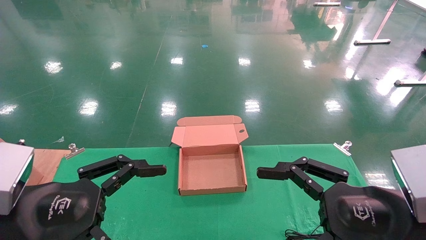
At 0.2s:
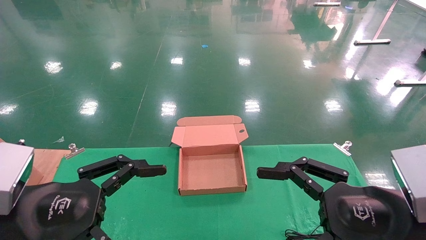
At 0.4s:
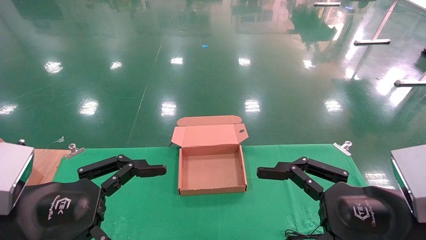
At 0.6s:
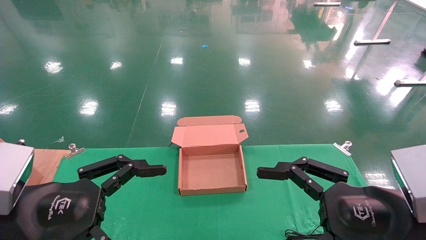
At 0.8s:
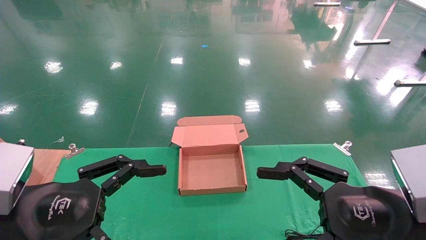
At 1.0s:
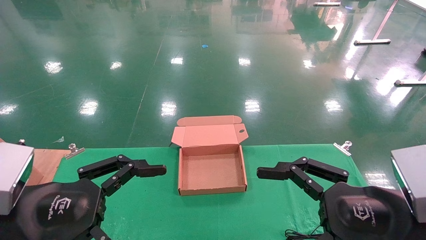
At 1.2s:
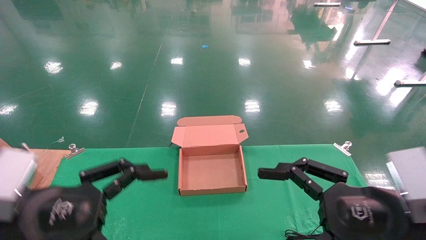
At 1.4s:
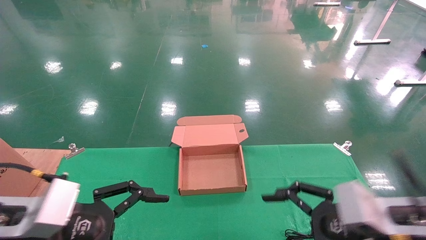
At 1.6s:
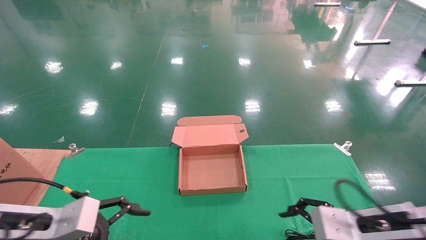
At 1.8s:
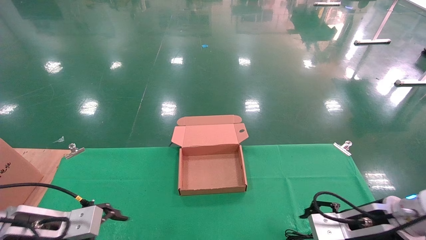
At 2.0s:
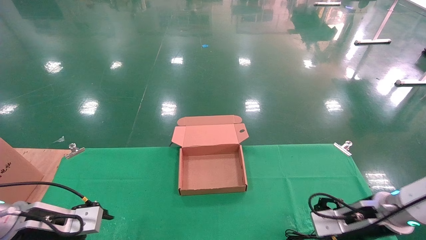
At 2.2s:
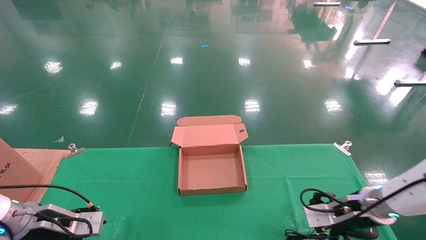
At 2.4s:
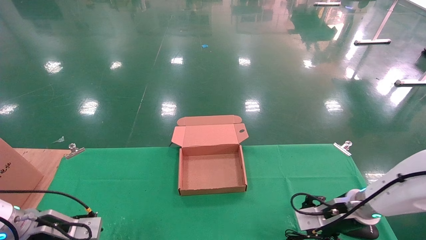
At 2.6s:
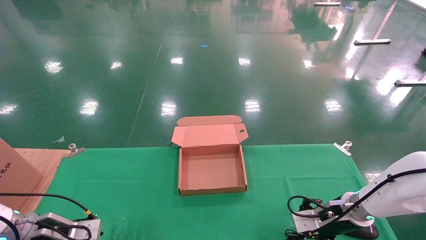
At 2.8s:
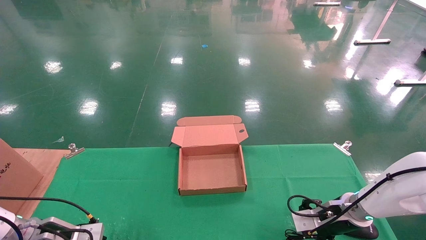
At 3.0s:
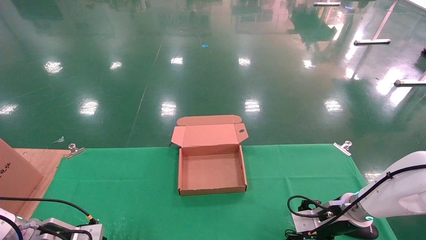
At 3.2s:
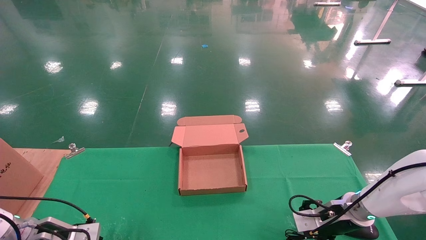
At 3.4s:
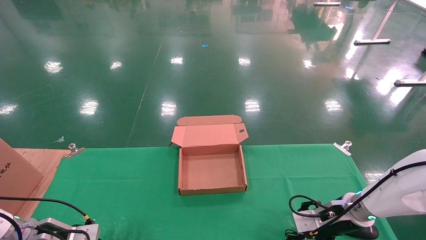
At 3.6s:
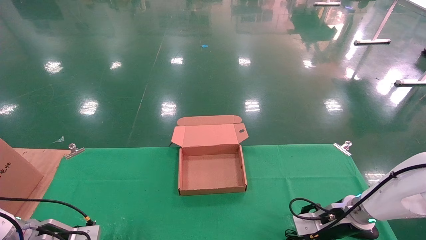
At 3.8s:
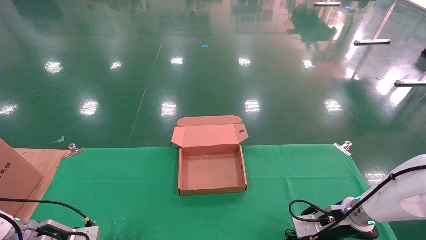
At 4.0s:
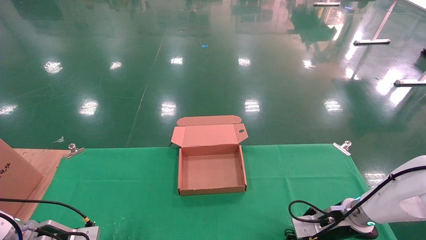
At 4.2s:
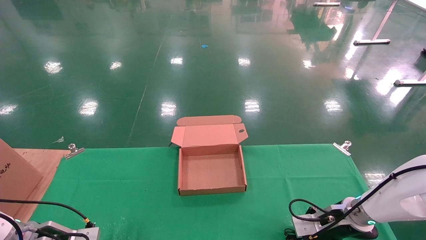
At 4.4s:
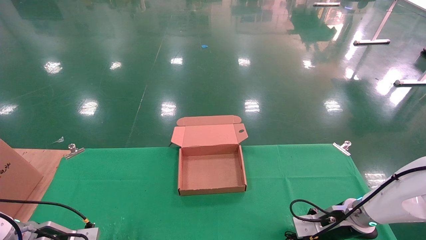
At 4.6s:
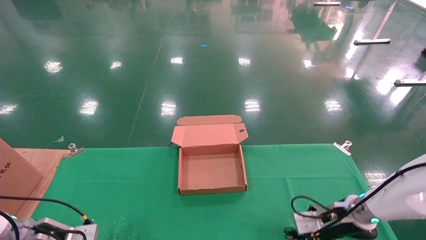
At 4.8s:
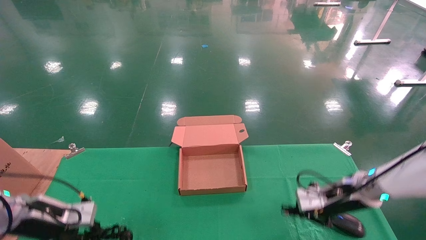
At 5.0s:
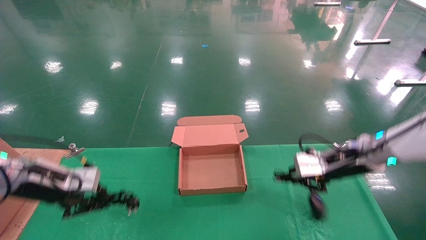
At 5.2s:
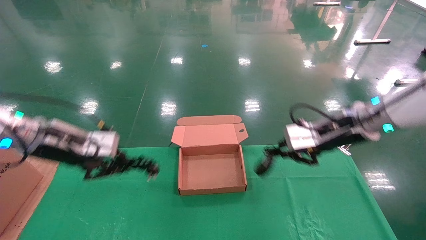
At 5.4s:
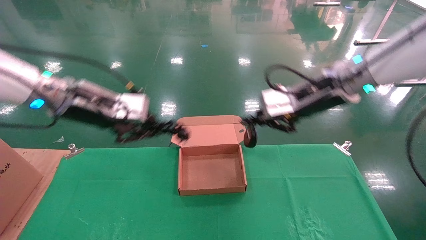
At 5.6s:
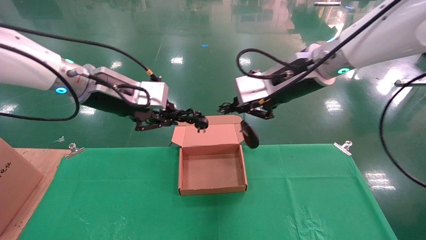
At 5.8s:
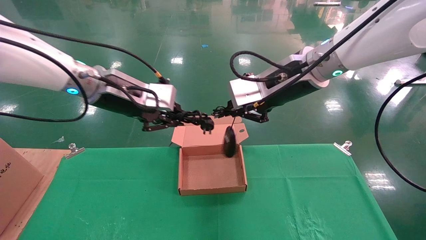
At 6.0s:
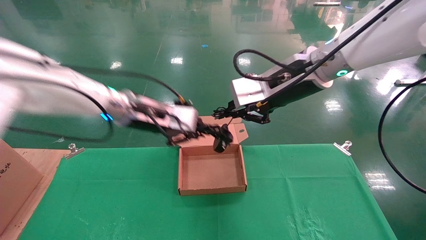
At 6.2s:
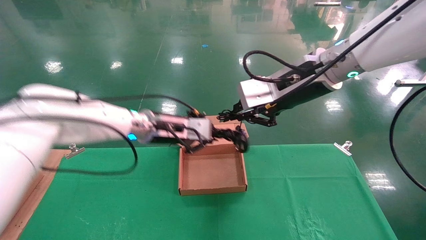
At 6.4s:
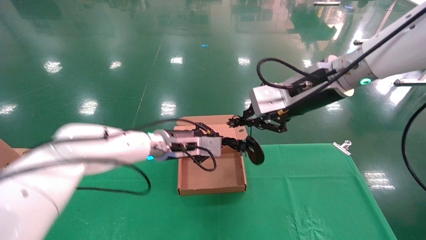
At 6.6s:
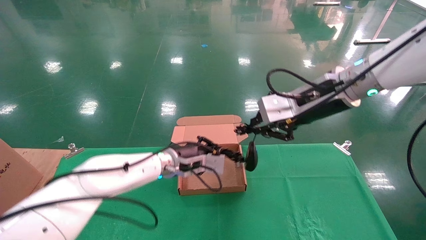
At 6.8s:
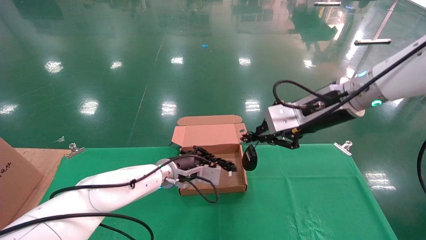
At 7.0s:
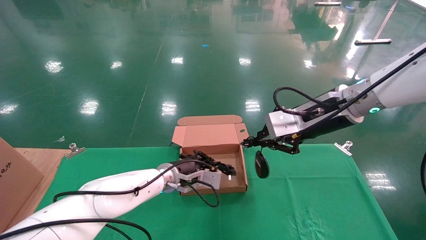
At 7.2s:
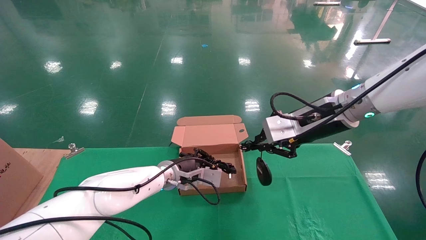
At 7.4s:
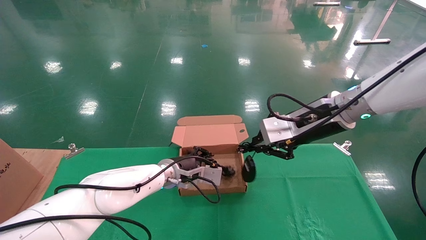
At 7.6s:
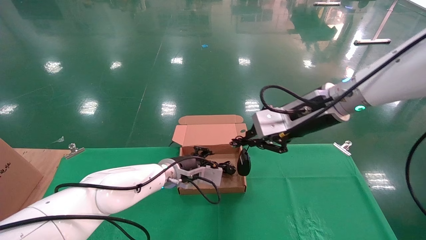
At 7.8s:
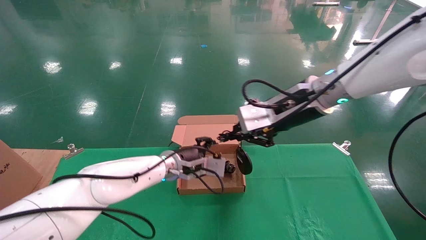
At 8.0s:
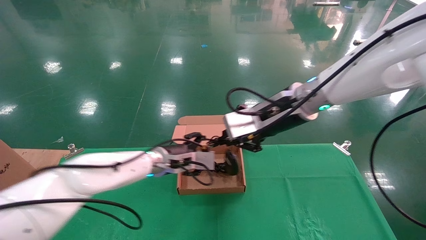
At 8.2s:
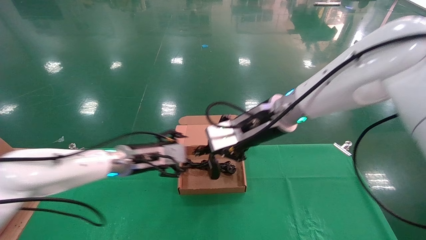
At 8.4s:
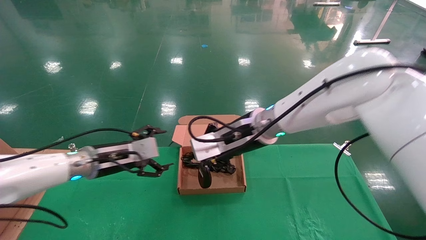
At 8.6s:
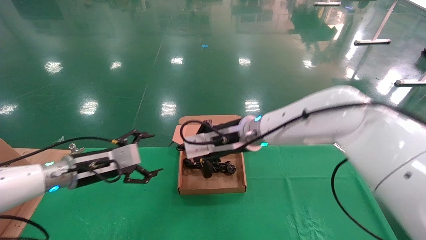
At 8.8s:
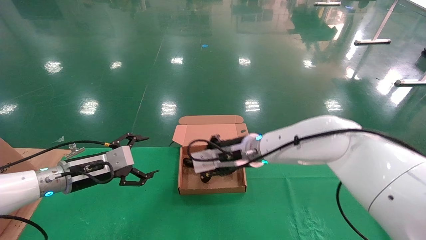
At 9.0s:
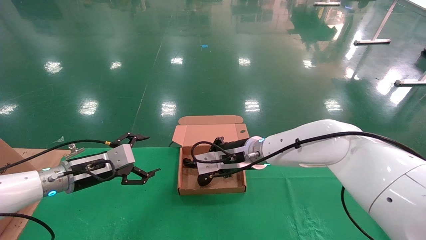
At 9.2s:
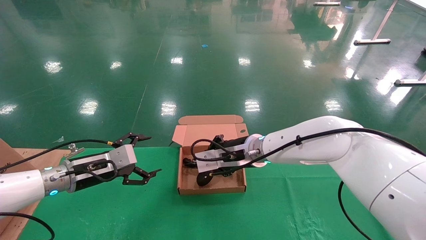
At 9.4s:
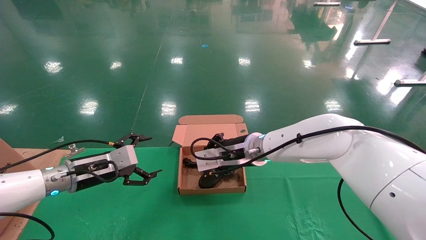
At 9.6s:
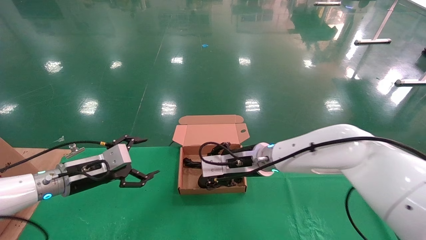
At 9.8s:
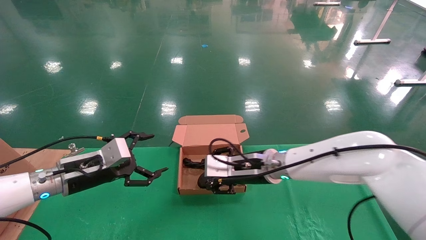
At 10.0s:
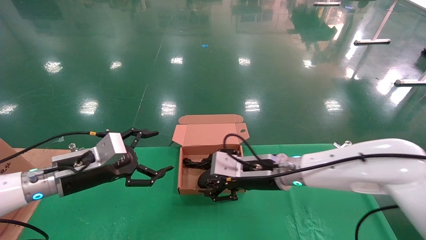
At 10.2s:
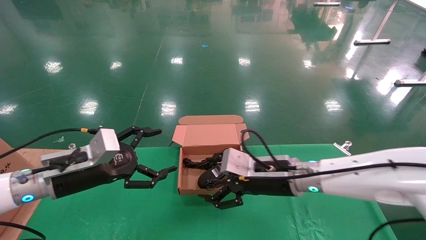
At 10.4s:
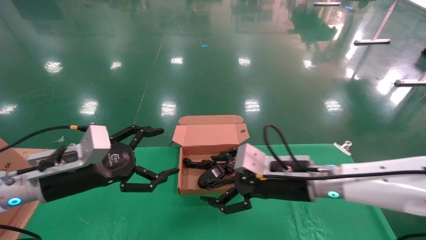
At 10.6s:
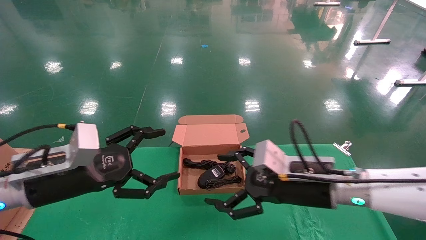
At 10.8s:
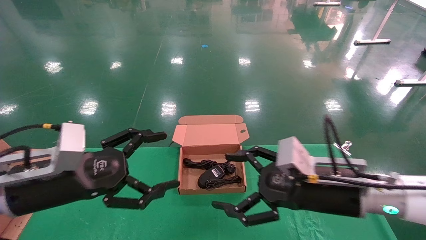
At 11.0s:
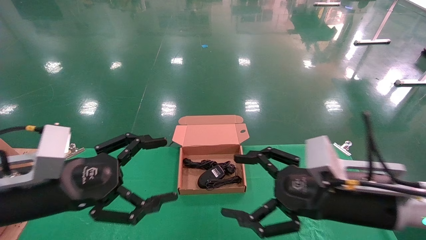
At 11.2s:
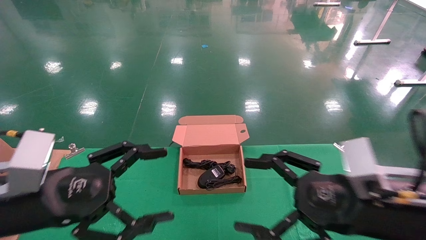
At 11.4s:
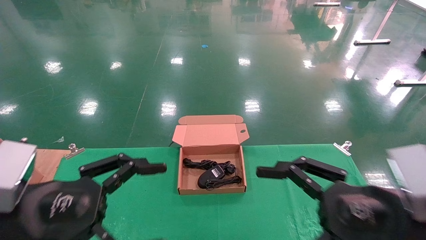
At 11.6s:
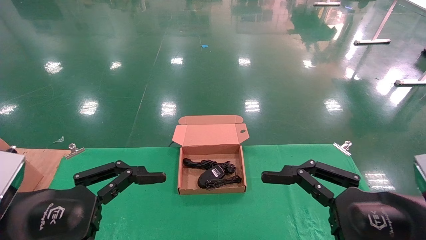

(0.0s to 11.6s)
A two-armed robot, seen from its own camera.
Step, 1.6s - 5.2s: Grab and lift both the mouse and power cord from the accessory packaging area at the same time.
Step, 5.4s - 10.0s: Place the mouse and power cord into the box.
0.0s - 1.4s: The left gripper changes place by approximately 5 cm; the right gripper shifts approximately 5 cm forward.
1.4s - 2.8s: The right gripper moves forward and downward, about 20 cm, while the left gripper is displaced forward, downward and to the left by some 20 cm.
2.8s - 4.4s: The right gripper closes up, while the left gripper closes.
4.4s - 5.8s: The right gripper moves upward and to the left, roughly 35 cm, while the left gripper travels upward and to the right by approximately 35 cm.
5.8s - 7.2s: The left gripper shifts roughly 25 cm downward, to the right and forward. The right gripper is displaced downward and to the right by approximately 10 cm.
7.2s - 8.8s: The left gripper goes roughly 20 cm to the left, and opens; the right gripper travels to the left, downward and forward by approximately 20 cm.
8.8s - 10.2s: The right gripper shifts roughly 10 cm to the right and backward, and opens up; the left gripper moves backward, roughly 5 cm.
10.2s - 11.6s: The right gripper moves backward and to the right, roughly 25 cm, while the left gripper moves backward, some 15 cm.

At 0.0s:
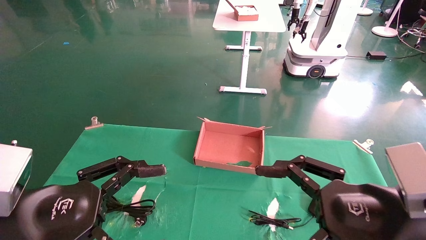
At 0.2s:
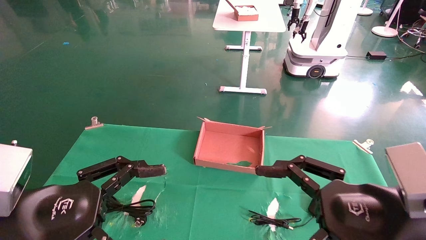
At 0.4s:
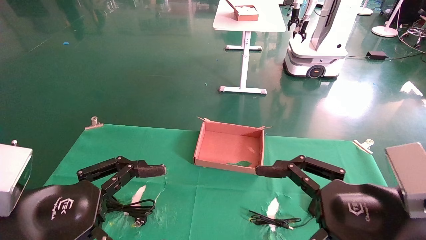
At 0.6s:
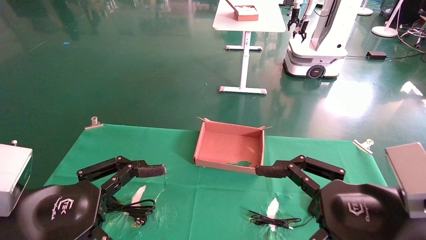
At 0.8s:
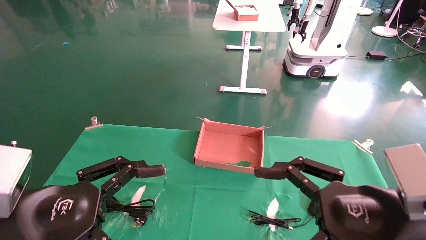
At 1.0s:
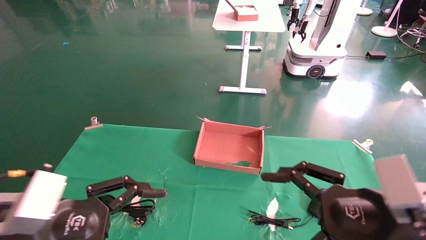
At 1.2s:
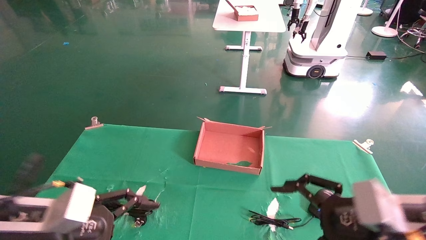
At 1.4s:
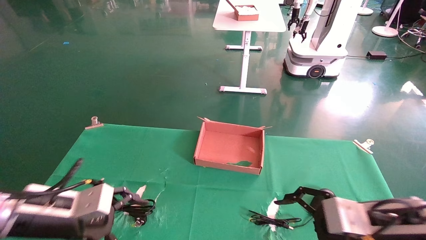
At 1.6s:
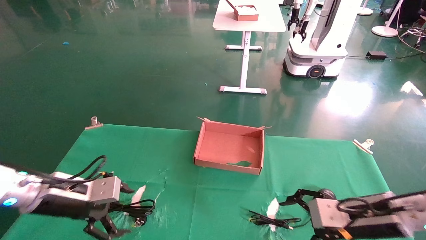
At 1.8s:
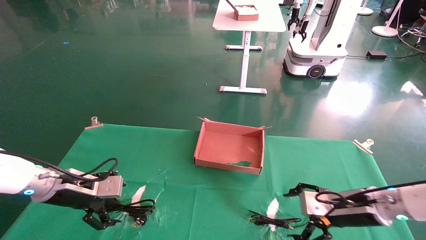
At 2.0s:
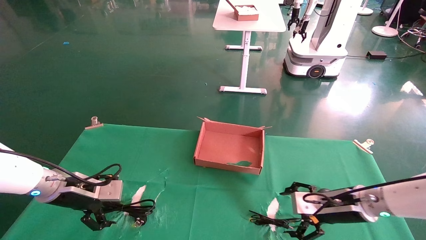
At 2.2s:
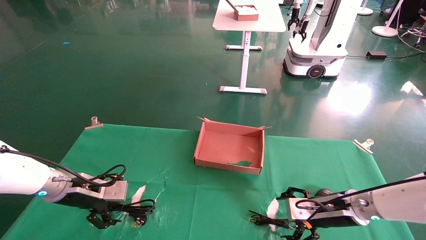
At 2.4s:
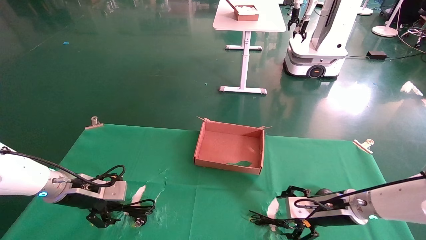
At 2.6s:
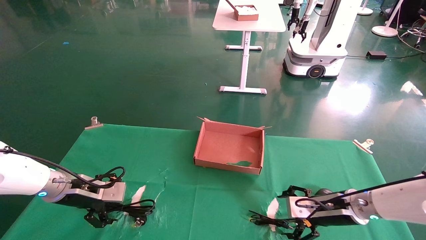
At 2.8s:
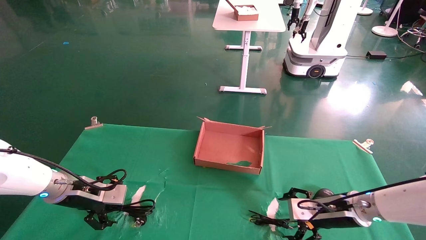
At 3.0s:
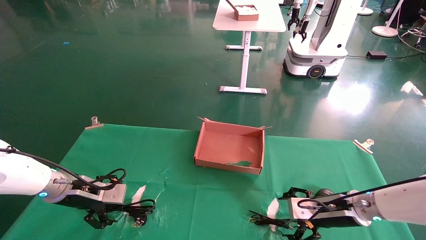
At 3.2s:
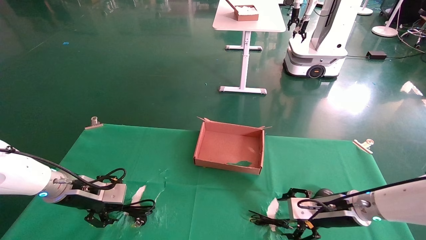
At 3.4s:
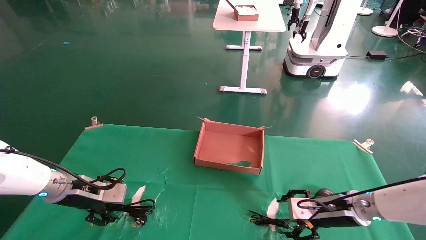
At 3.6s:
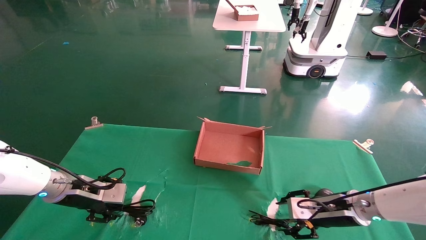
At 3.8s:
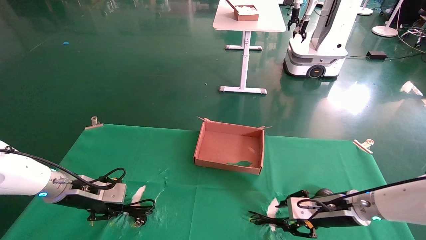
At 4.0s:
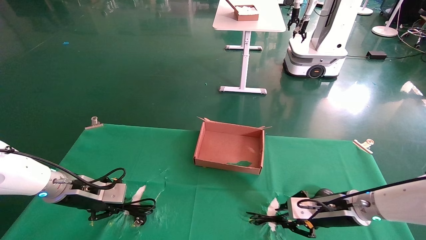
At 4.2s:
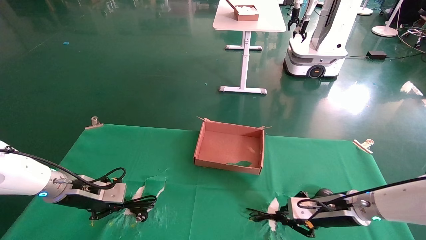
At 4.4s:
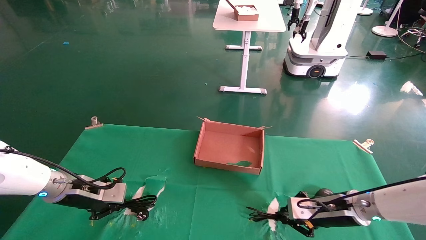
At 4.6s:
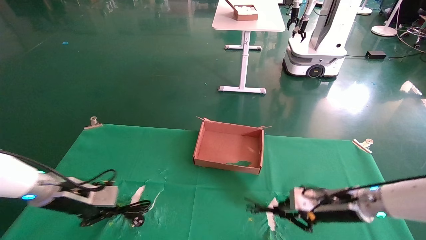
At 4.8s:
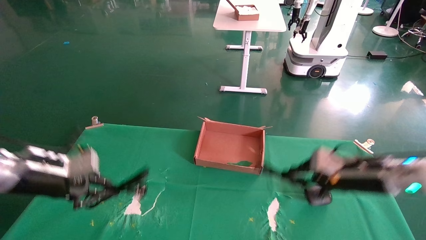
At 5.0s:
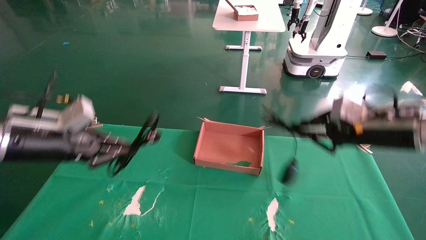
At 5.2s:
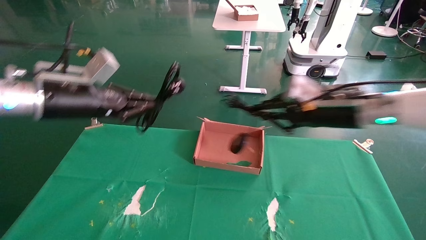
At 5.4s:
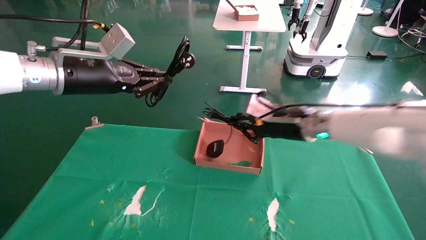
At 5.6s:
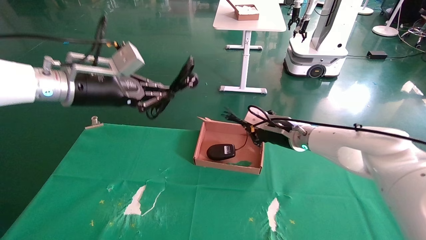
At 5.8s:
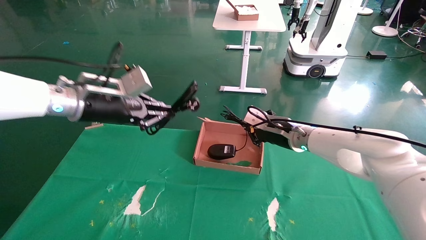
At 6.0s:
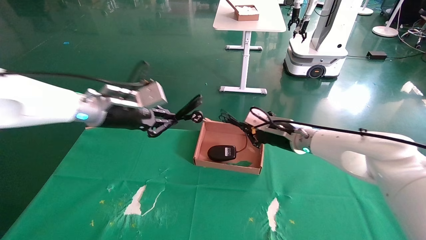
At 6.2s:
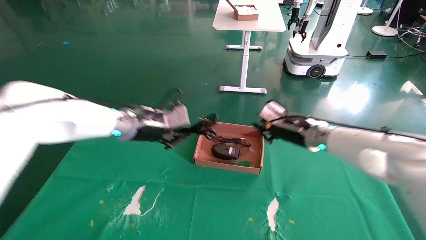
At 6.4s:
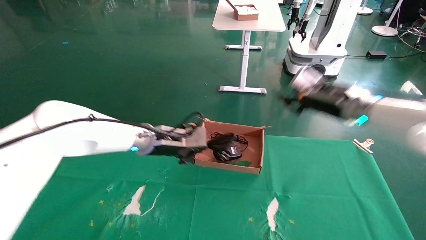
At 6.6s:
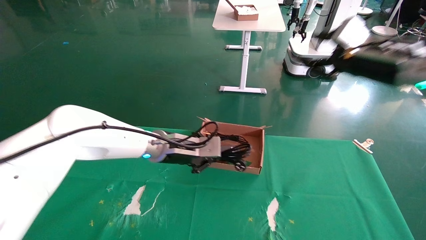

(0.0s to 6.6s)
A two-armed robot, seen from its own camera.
Step, 1.2s - 4.2s: Grab and lift both the mouse and power cord from the accessory packaging area at the same time.
0.0s - 1.6s: The right gripper goes about 15 cm forward and downward. The left gripper moves forward, roughly 15 cm.
1.6s - 3.2s: The right gripper travels forward and downward by some 10 cm; the left gripper goes some 5 cm forward.
3.2s - 5.0s: The grippers both shift upward by about 15 cm. The right gripper closes its fingers; the left gripper closes its fingers.
5.0s - 6.6s: The left gripper heads to the right and forward, covering some 25 cm; the right gripper is displaced upward by about 10 cm, and opens its fingers.
